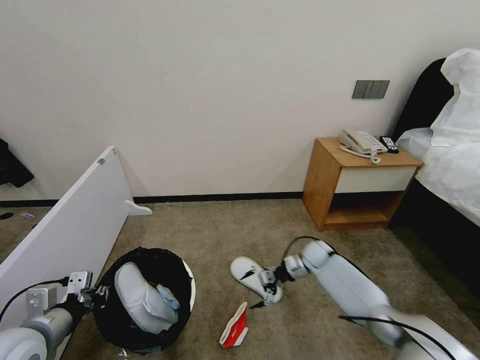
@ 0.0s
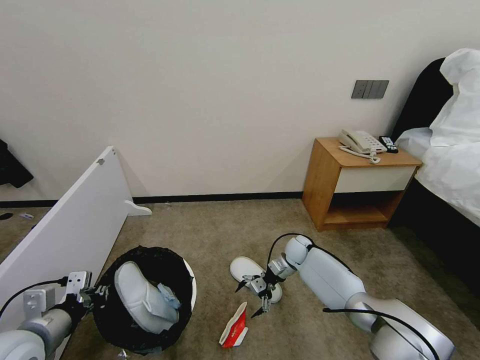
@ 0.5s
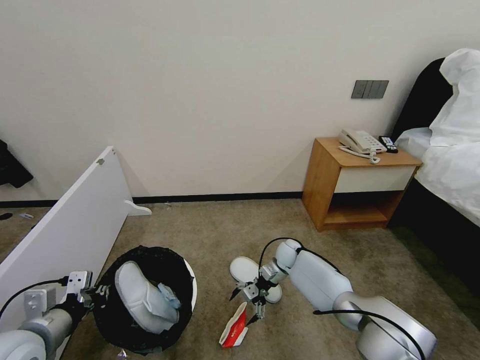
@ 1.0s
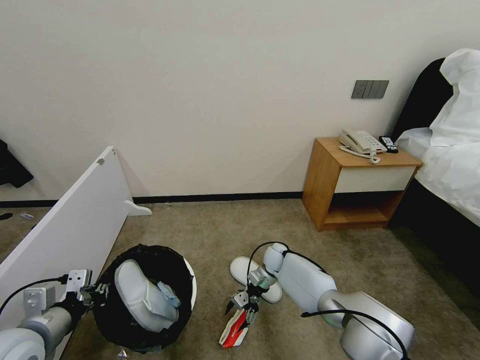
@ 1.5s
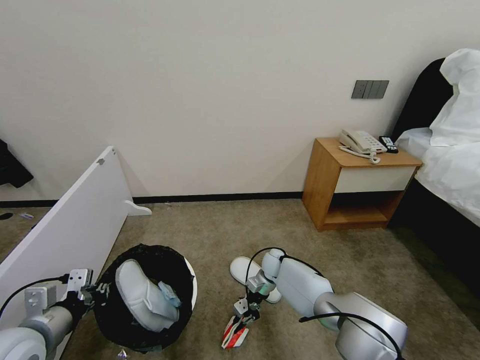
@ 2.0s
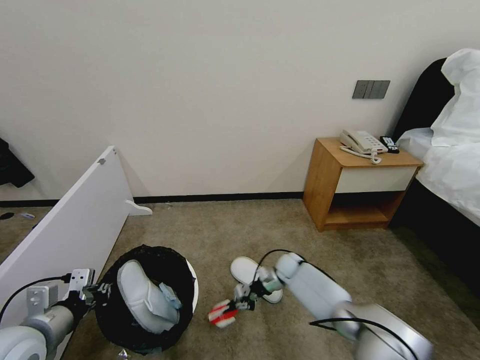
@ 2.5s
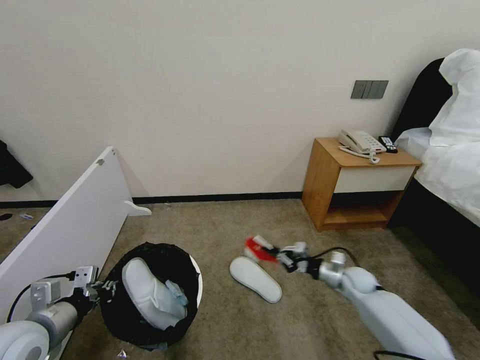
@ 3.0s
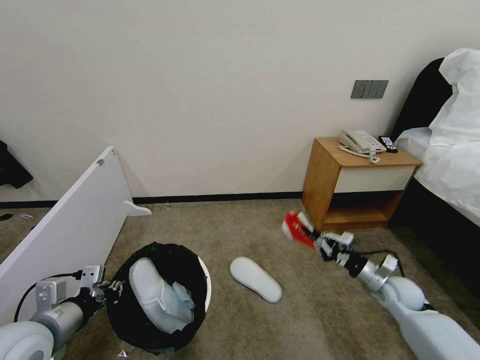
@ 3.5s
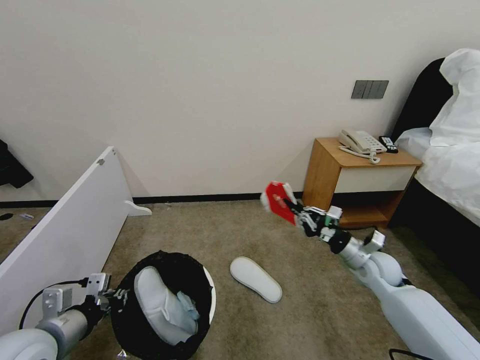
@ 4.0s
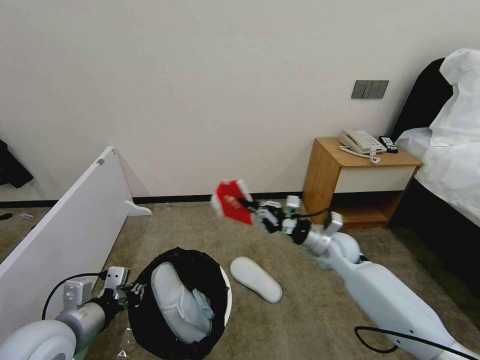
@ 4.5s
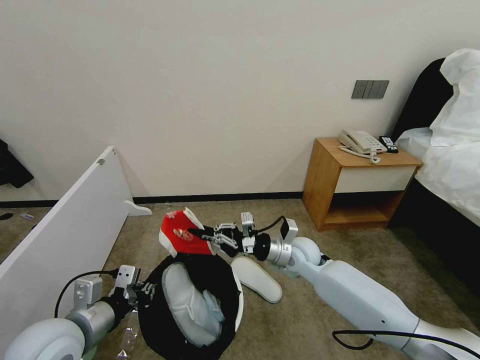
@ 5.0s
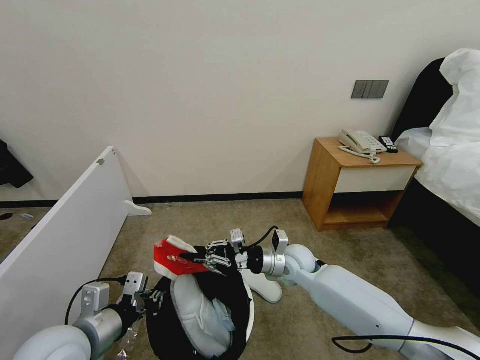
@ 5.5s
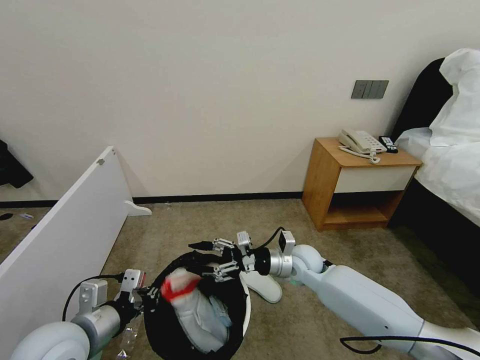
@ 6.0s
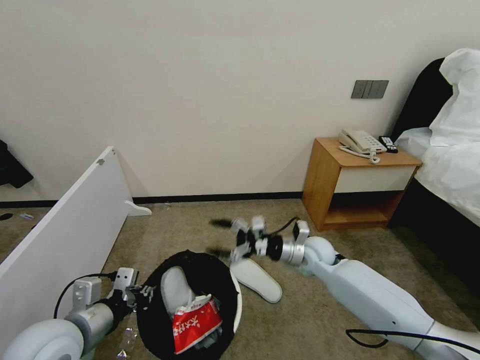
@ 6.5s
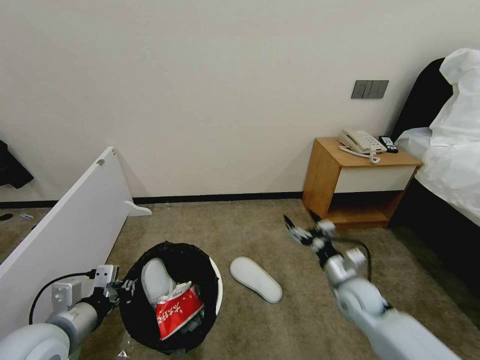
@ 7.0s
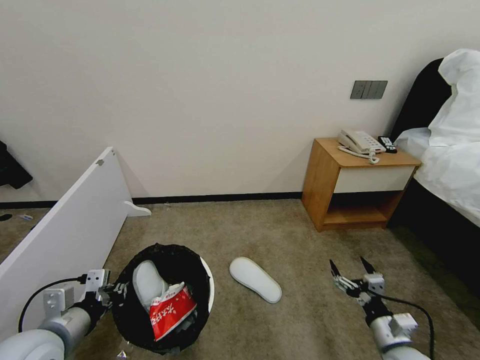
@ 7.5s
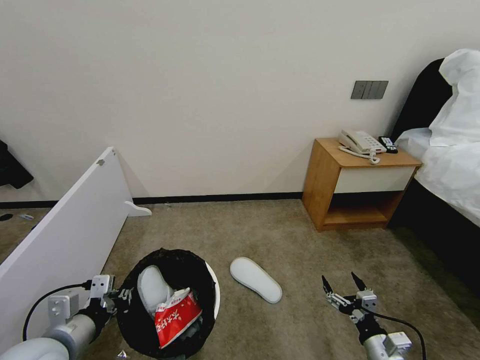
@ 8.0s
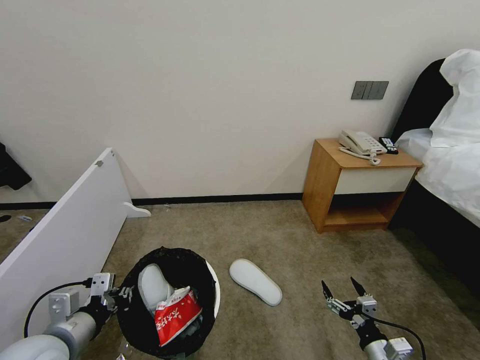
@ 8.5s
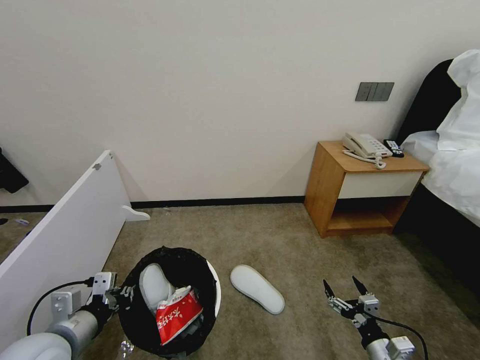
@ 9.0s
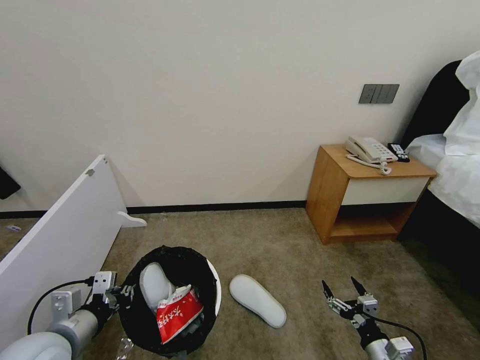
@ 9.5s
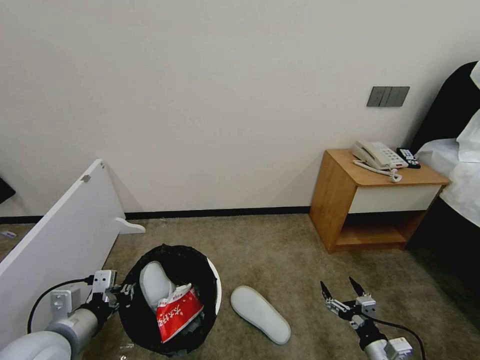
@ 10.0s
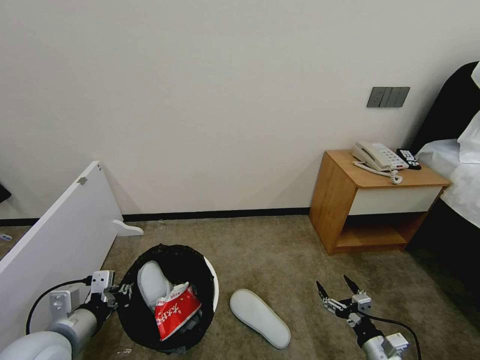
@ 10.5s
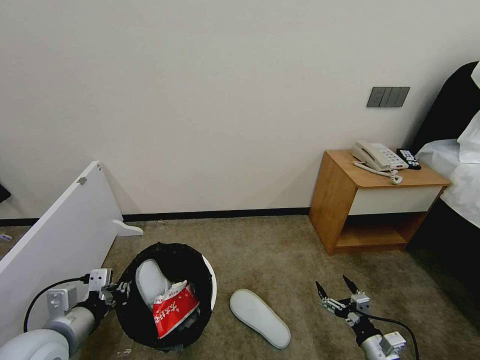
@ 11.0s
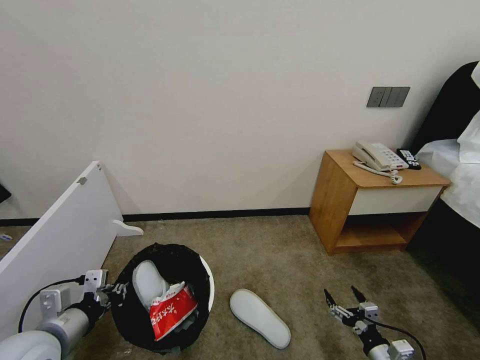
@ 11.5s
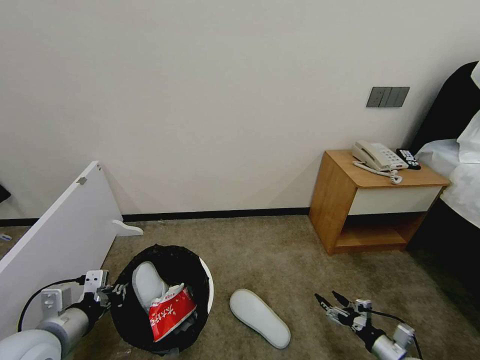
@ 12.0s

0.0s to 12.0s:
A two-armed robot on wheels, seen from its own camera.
Task of the whole recording: Pick up the trash bin, then pick up the garbage from the floor and place it into the trash bin.
0.0s to 2.0s: The right gripper shifts approximately 15 cm to the left, and closes up.
2.0s to 4.0s: The right gripper shifts some 30 cm to the right, upward and backward.
4.0s to 6.0s: The right gripper moves to the left, approximately 20 cm, and opens up. The left gripper is displaced to the right by roughly 5 cm.
6.0s to 8.0s: The right gripper travels backward, to the right and downward by roughly 30 cm.
10.0s to 12.0s: The right gripper travels to the right by some 5 cm.

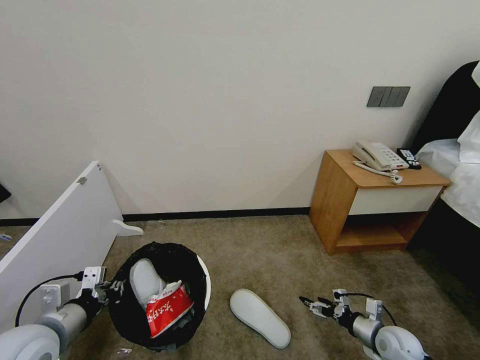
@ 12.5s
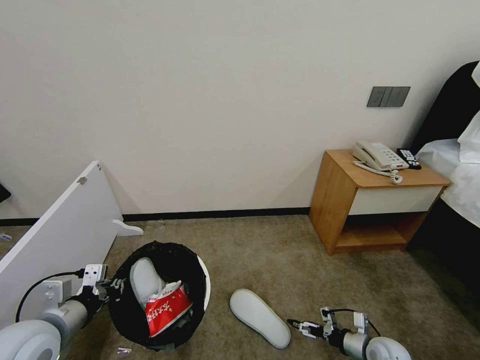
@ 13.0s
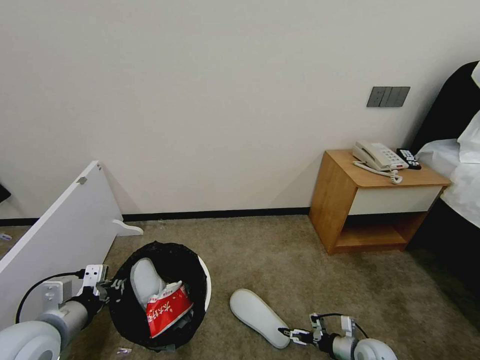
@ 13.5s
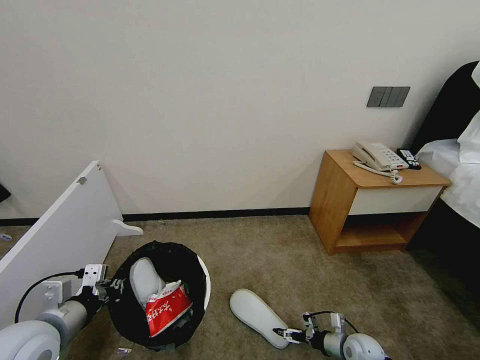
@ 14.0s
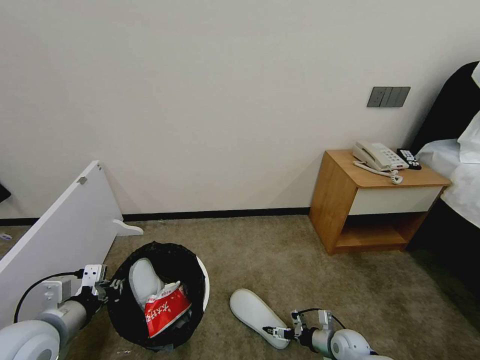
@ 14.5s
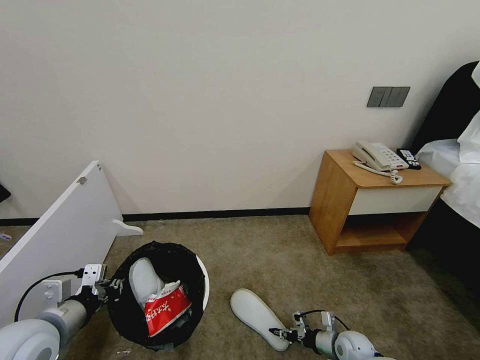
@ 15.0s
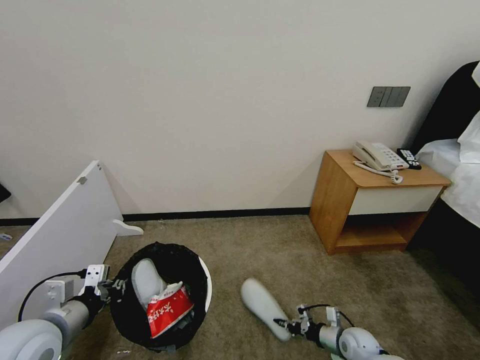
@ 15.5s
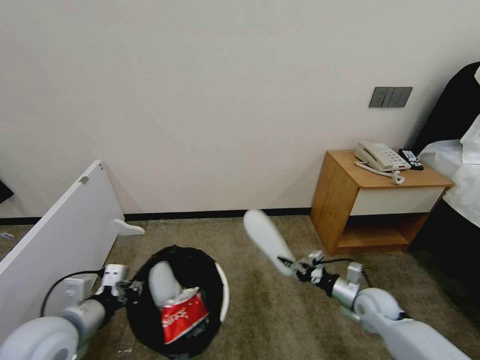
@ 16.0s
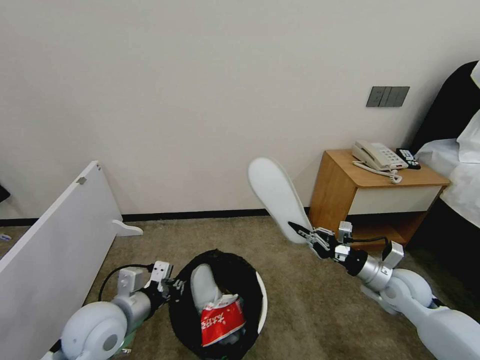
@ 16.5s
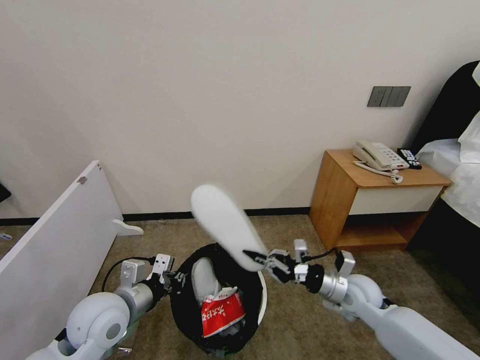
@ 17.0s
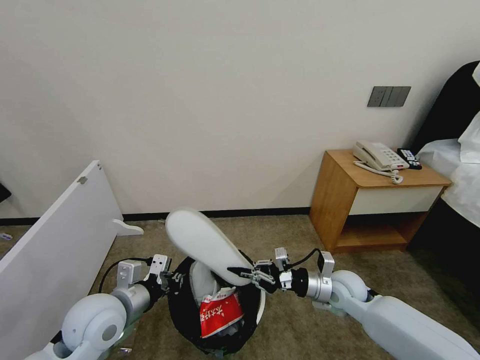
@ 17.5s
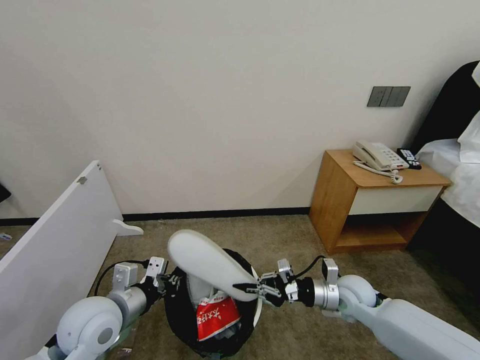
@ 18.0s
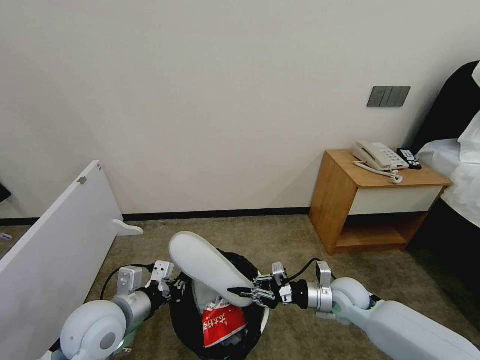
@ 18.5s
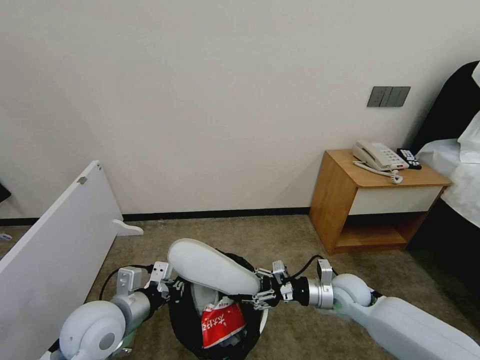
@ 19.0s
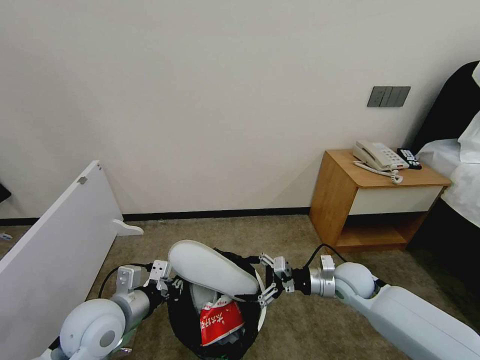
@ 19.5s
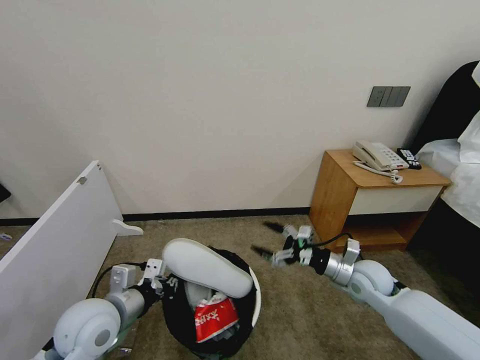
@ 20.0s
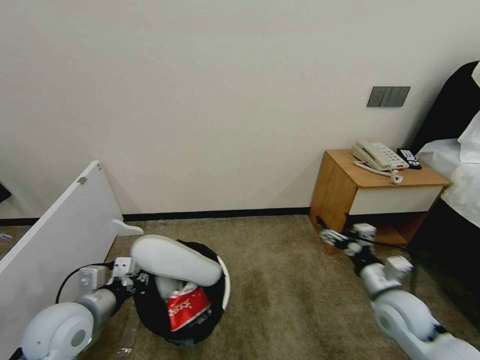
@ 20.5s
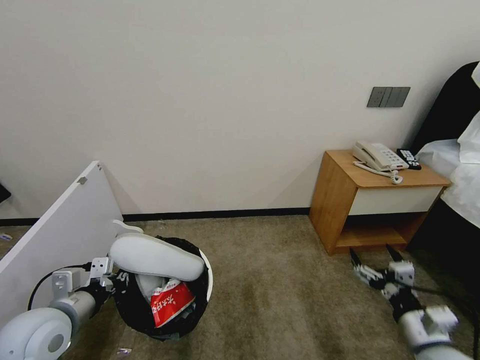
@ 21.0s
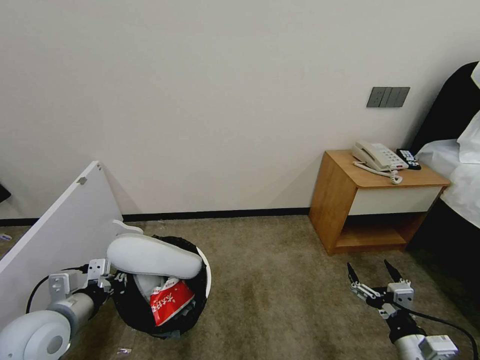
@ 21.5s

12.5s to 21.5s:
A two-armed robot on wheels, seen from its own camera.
Task of the whole recording: Pick up the trash bin, then pick up the garbage from the floor and place it into the trash bin.
12.5s to 14.5s: The right gripper heads to the left and downward, covering some 10 cm.
14.5s to 17.0s: The left gripper is displaced to the right and forward by roughly 10 cm; the right gripper shifts some 20 cm upward, and closes.
17.0s to 19.5s: The right gripper opens its fingers.
19.5s to 21.5s: The right gripper travels backward by about 20 cm. The left gripper moves to the left, some 10 cm.

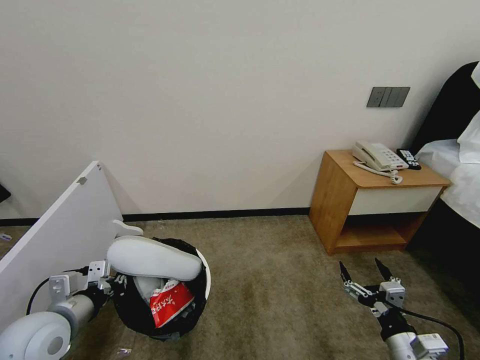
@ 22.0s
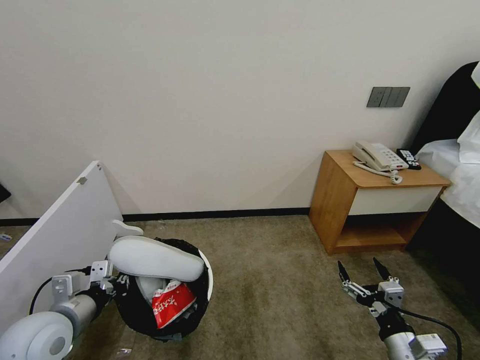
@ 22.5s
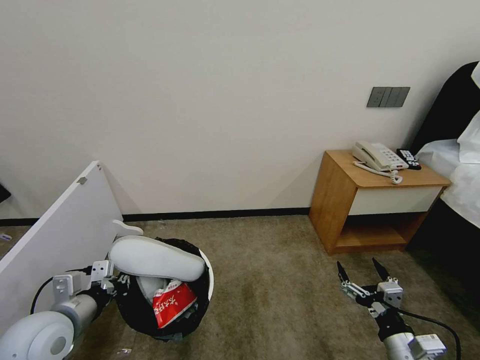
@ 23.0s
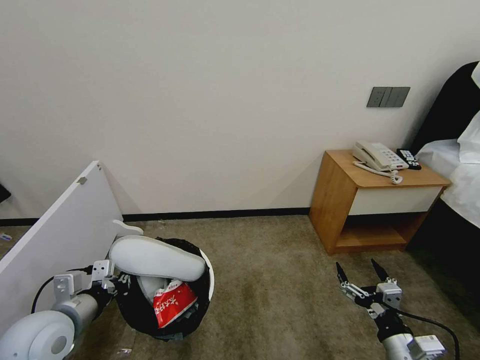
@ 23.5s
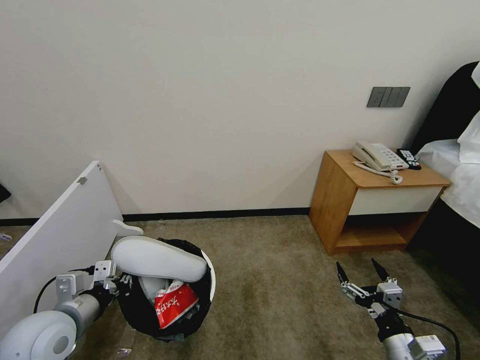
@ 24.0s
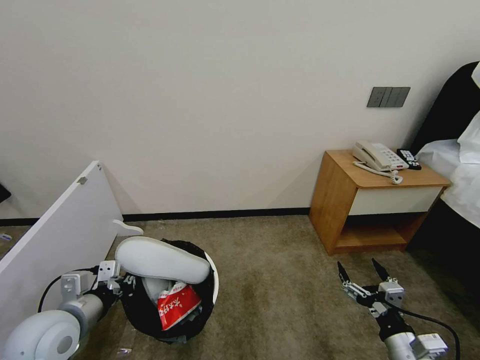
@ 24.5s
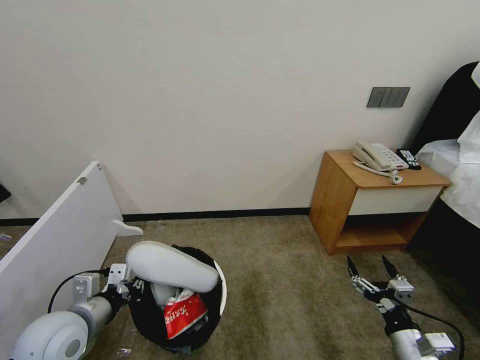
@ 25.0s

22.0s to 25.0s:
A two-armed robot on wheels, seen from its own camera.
Task of the whole recording: Pick up the trash bin, then pick up the garbage from the floor and place it into the trash bin.
22.0s to 23.5s: Both grippers stay about where they are.
23.5s to 25.0s: The grippers move only a little.

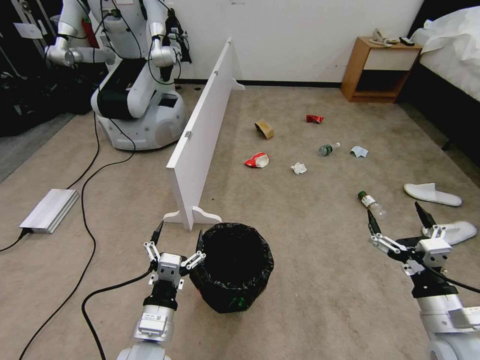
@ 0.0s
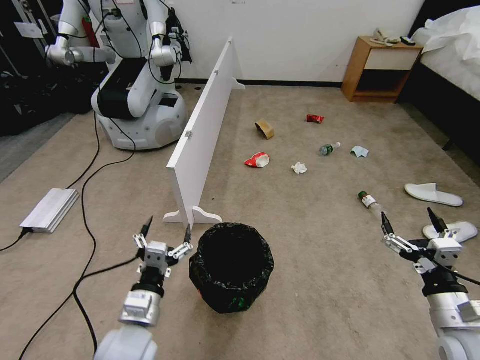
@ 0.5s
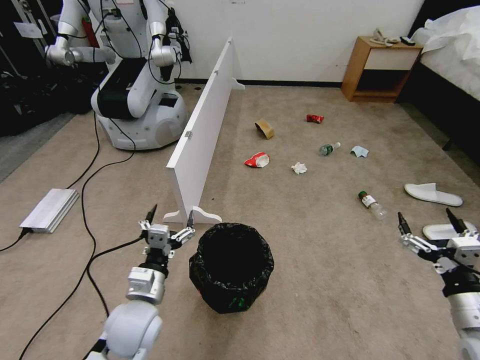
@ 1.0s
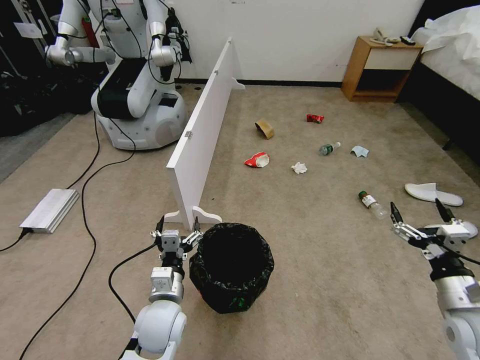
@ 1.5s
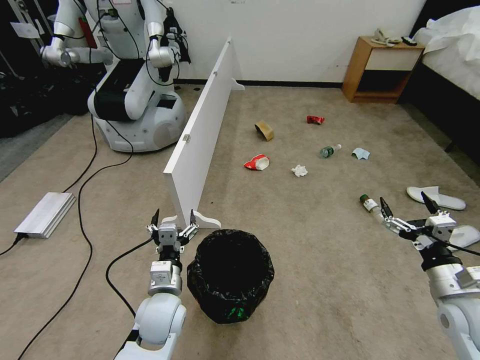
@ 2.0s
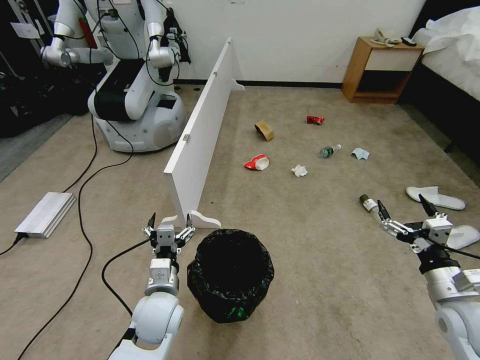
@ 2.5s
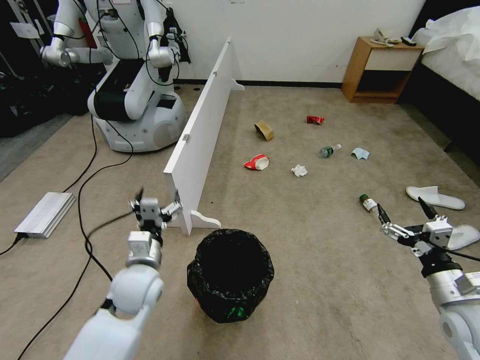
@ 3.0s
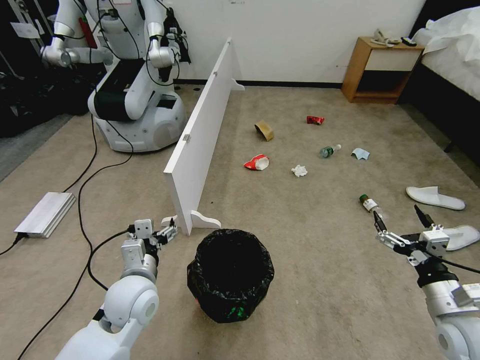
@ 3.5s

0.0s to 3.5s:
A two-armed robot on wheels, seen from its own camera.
Task of the whole recording: Pick up the trash bin, then pick up the garbage from the floor and place it into the trash bin.
0.0s to 2.0s: The left gripper heads forward, covering roughly 10 cm. The right gripper is displaced to the right and forward by approximately 10 cm.
2.0s to 3.5s: The left gripper goes roughly 5 cm upward and to the left.
